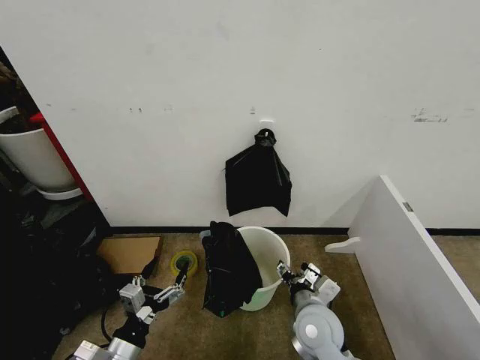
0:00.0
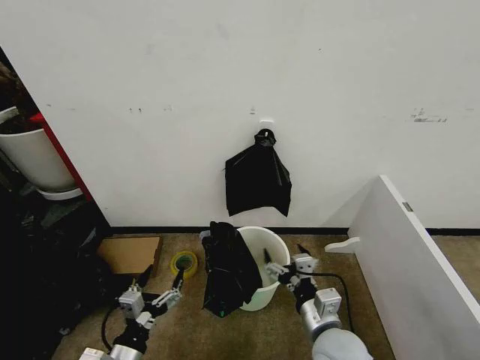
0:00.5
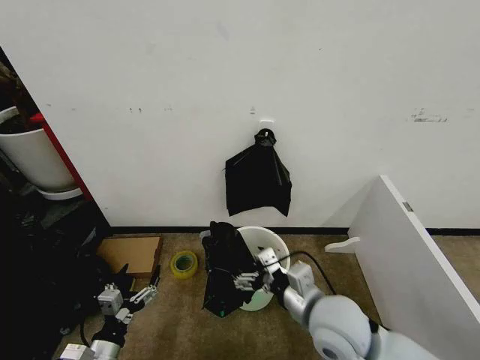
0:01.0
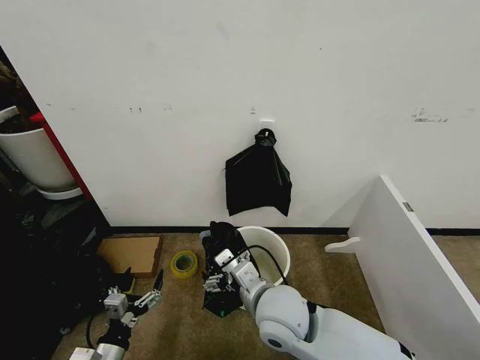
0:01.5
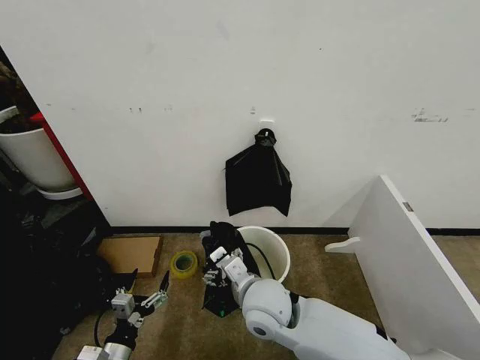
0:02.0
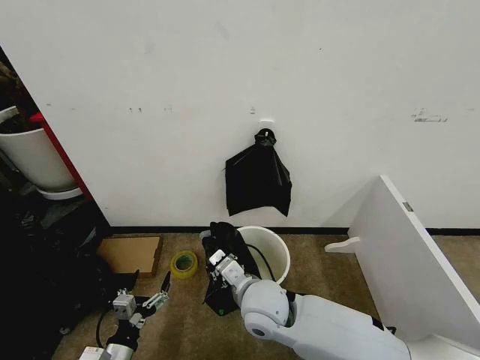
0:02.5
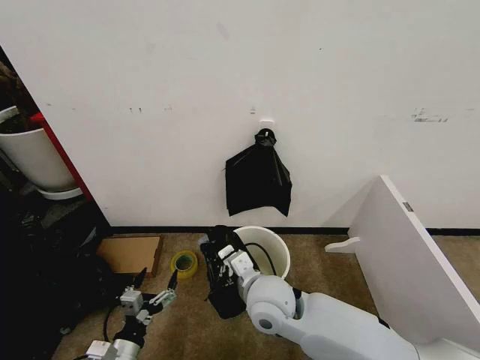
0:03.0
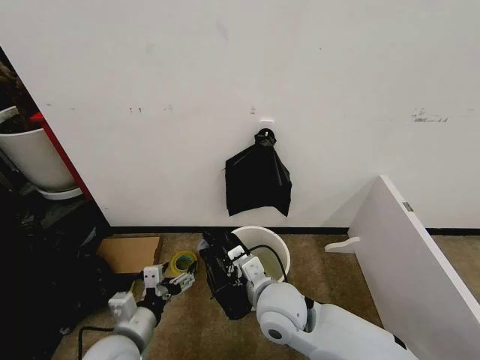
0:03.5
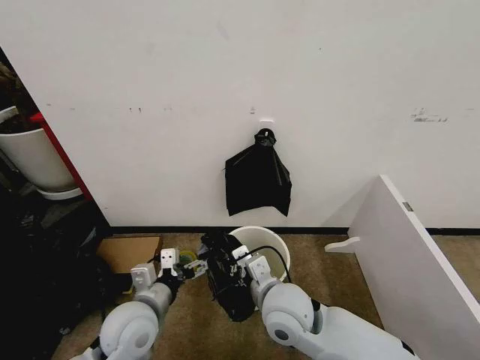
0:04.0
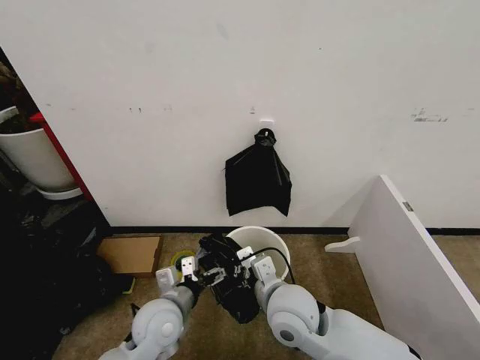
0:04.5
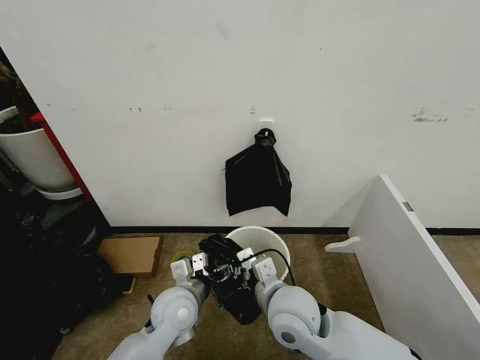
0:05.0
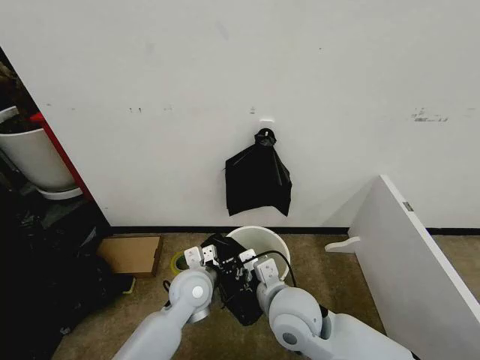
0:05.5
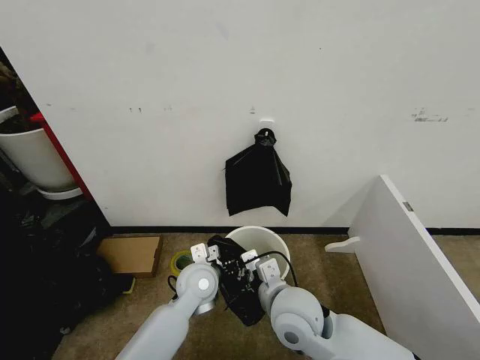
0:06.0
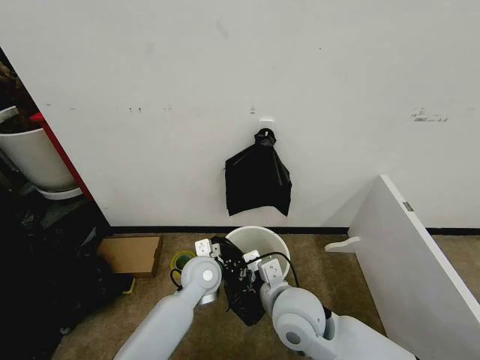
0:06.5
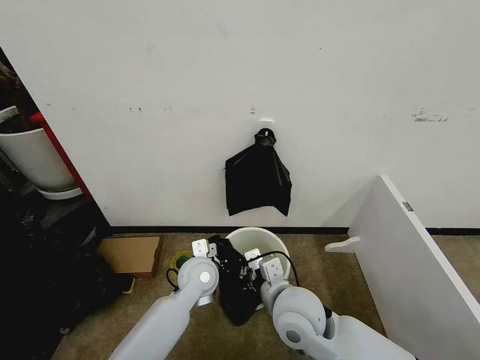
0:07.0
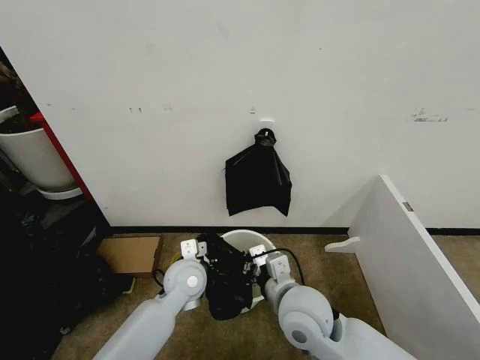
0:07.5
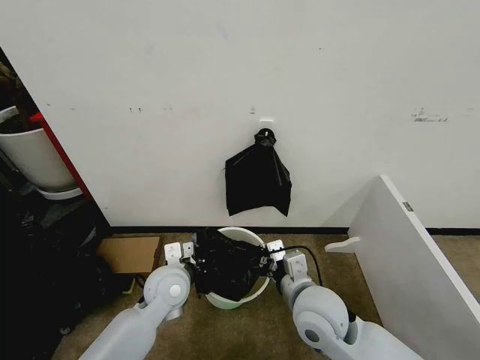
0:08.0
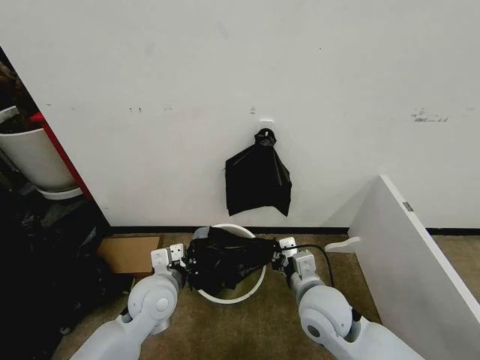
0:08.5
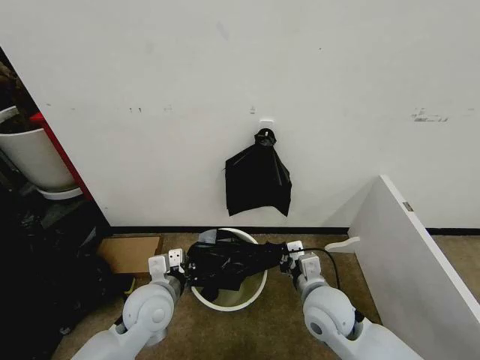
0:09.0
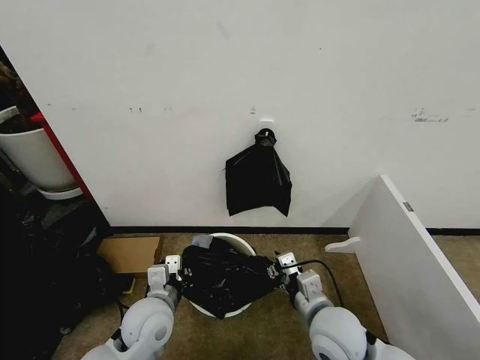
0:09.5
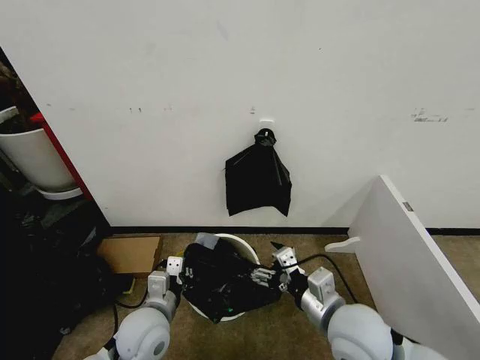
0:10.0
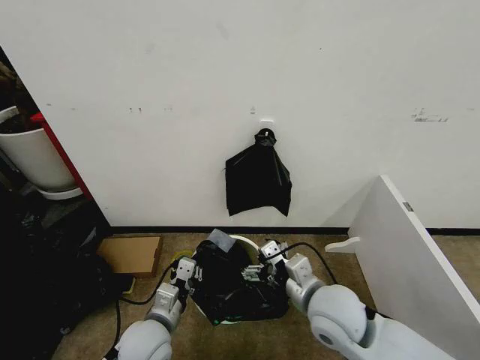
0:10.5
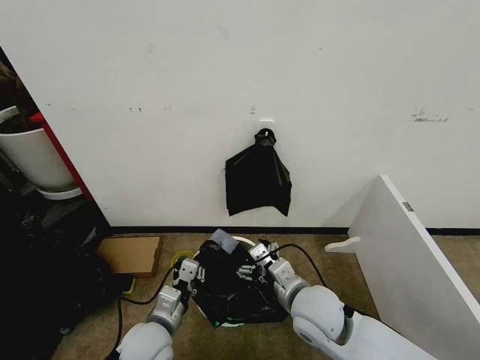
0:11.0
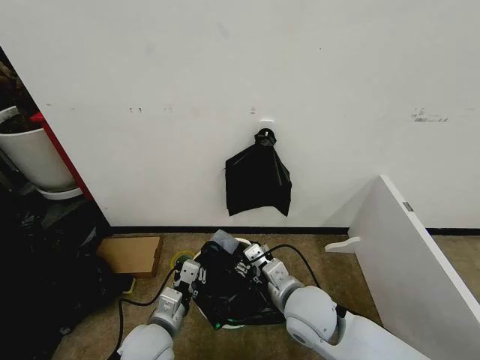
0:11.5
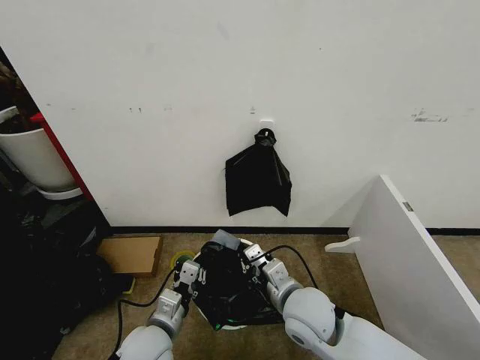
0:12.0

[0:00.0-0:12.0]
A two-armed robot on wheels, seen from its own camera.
Task of the whole recording: Place the garbage bag over the trash bin.
0:00.0 to 0:02.0: The right gripper moves to the left and upward, approximately 15 cm. The left gripper heads downward, covering roughly 5 cm.
0:02.0 to 0:04.0: The left gripper heads upward, forward and to the right, covering about 20 cm, while the right gripper closes up.
0:04.0 to 0:06.0: The left gripper travels to the right and forward by roughly 15 cm.
0:06.0 to 0:08.0: The left gripper is displaced to the left by about 5 cm, and closes.
0:08.0 to 0:10.0: The left gripper shifts approximately 10 cm backward. Meanwhile the right gripper goes about 5 cm to the right, and opens up.
0:10.0 to 0:12.0: The right gripper shifts about 5 cm to the left, and closes its fingers.

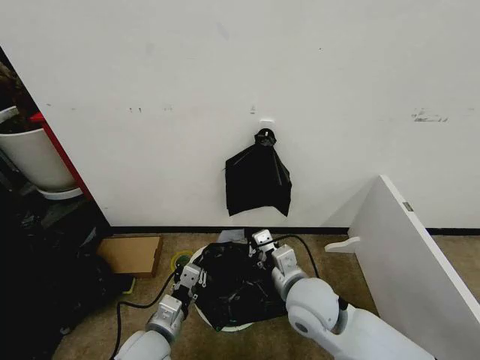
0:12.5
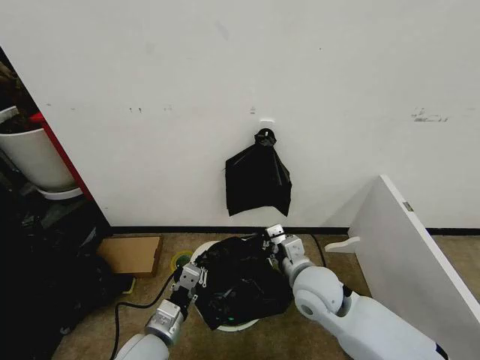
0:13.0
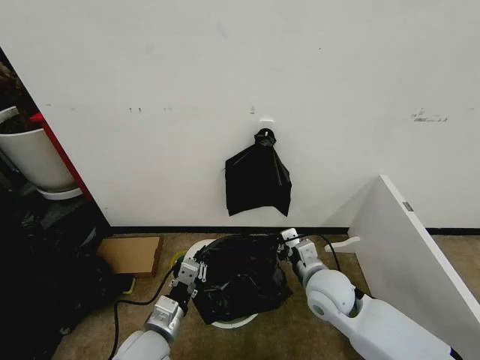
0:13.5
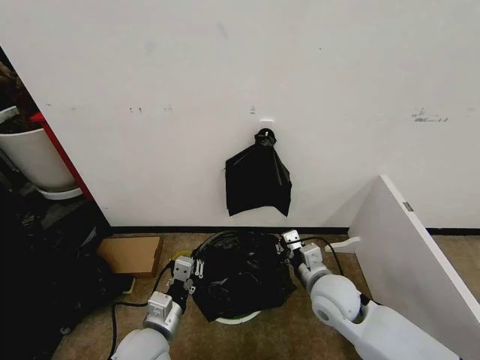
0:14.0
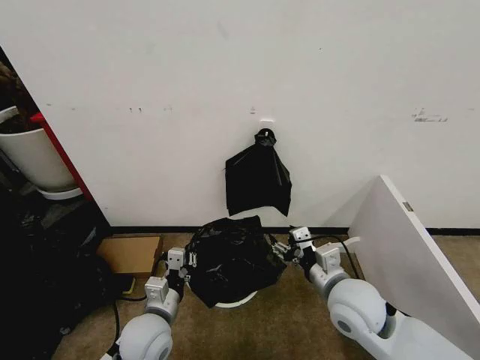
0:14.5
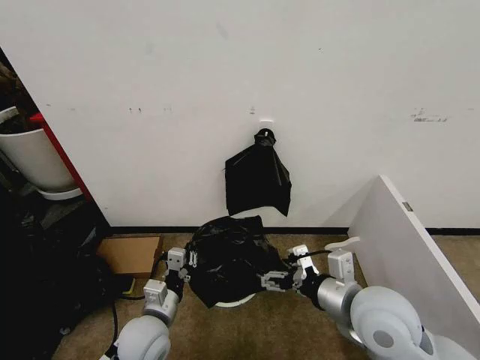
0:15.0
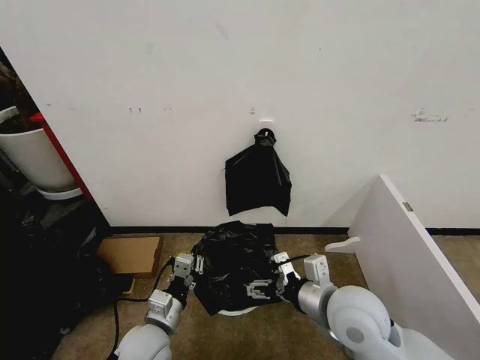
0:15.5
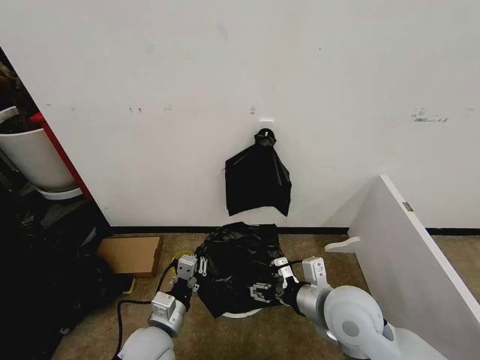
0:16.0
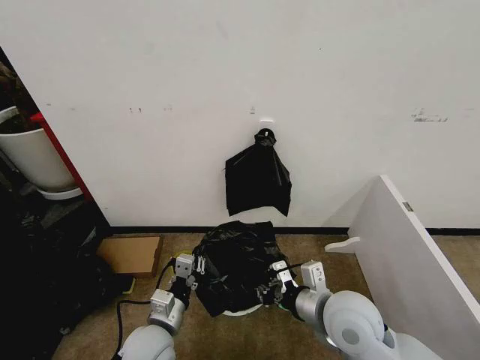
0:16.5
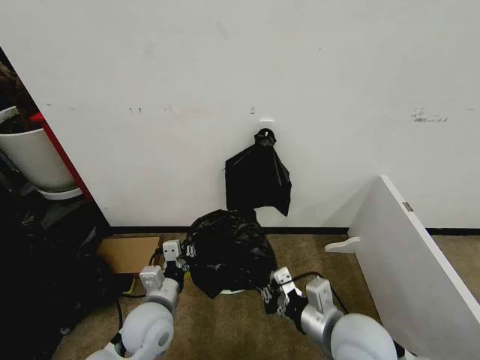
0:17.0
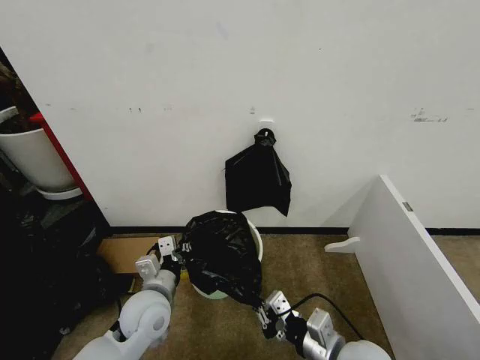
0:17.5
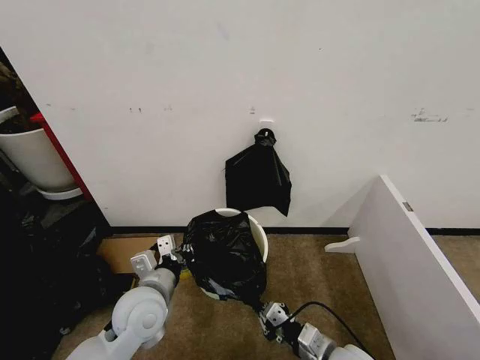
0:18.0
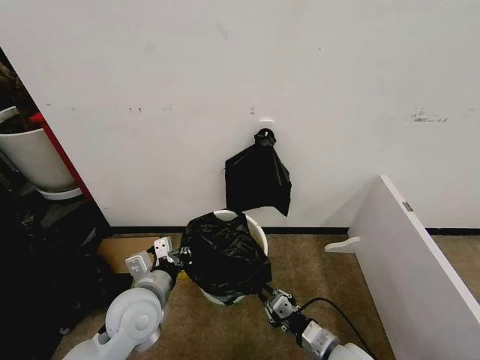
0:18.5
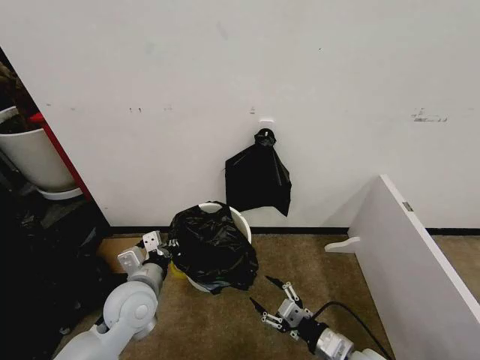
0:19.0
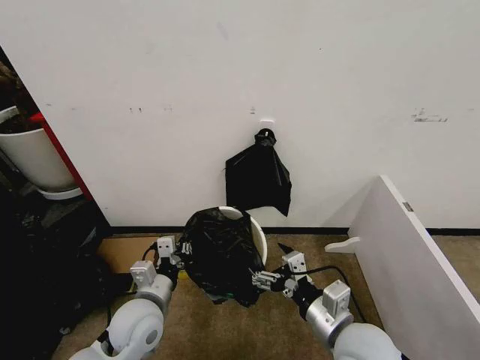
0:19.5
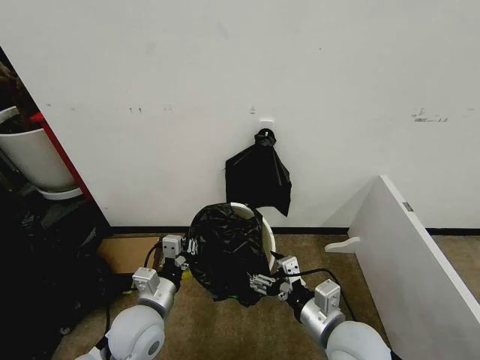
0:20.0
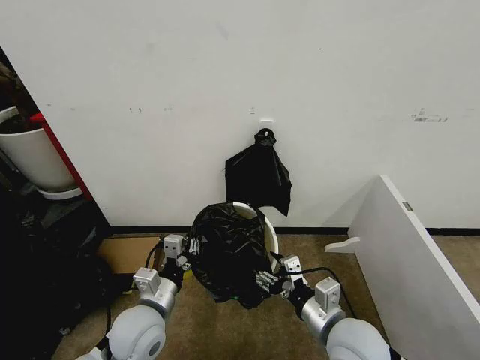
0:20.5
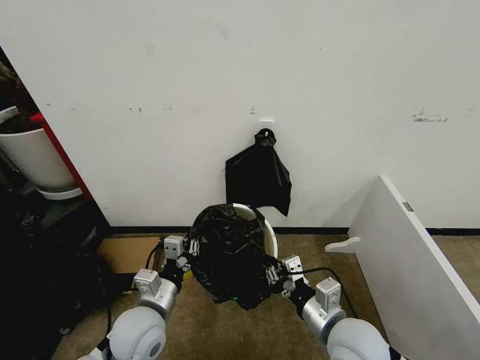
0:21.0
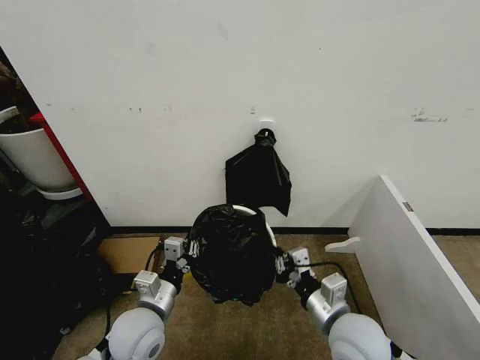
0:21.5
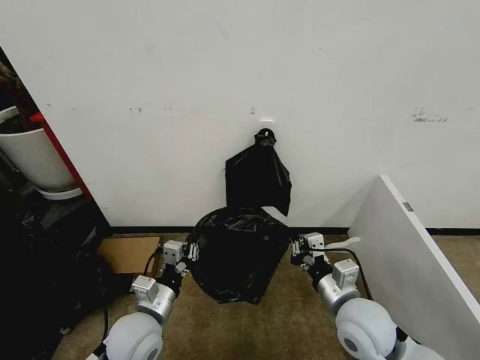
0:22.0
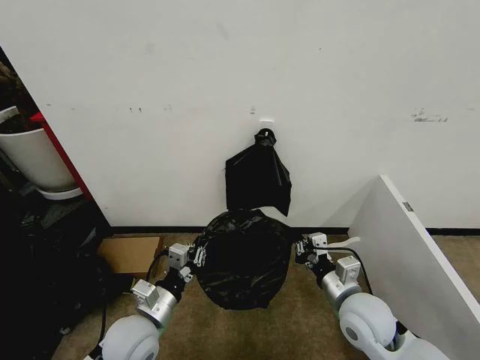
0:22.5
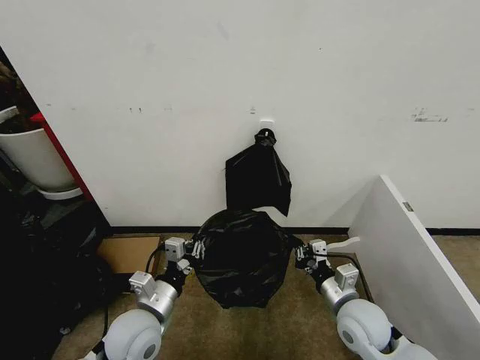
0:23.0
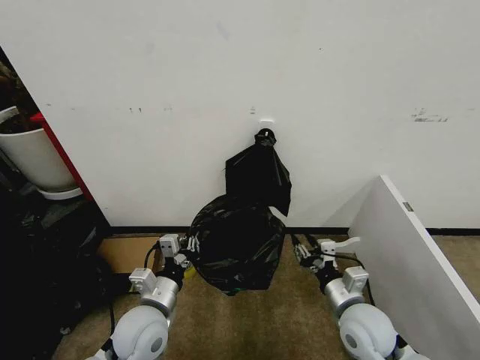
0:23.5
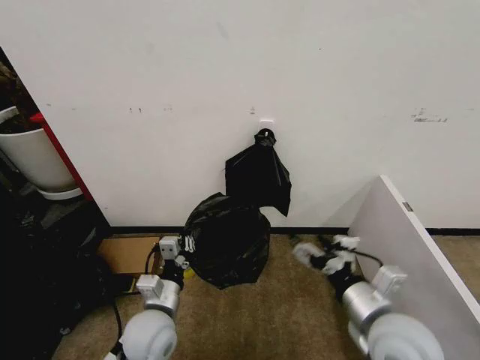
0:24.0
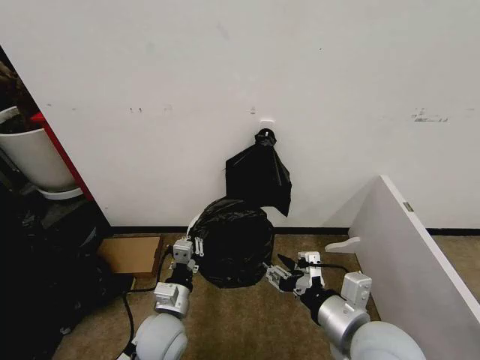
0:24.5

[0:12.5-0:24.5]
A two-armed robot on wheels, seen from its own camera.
Task of the whole recording: Place the garbage bag over the trash bin.
0:12.5 to 0:14.5: The right gripper heads to the right, covering about 10 cm, and opens.
0:14.5 to 0:16.5: The right gripper closes its fingers.
0:16.5 to 0:18.5: The right gripper moves downward and backward, some 15 cm. The left gripper shifts approximately 10 cm upward.
0:18.5 to 0:20.5: The right gripper travels upward by roughly 10 cm, and opens up.
0:20.5 to 0:22.5: The right gripper travels forward and to the right by roughly 10 cm, and closes its fingers.
0:22.5 to 0:24.5: The left gripper moves to the right, roughly 5 cm, while the right gripper heads upward and backward, covering about 10 cm, and opens up.

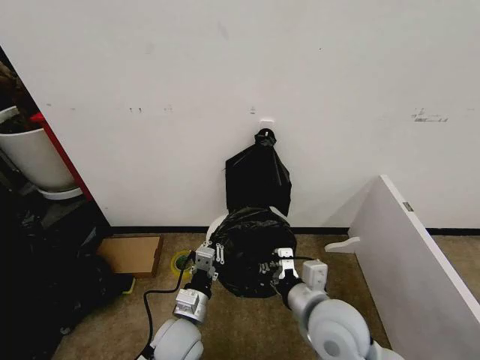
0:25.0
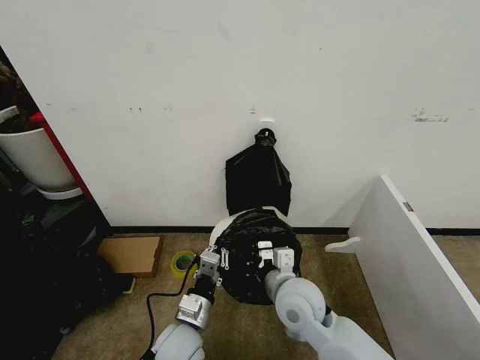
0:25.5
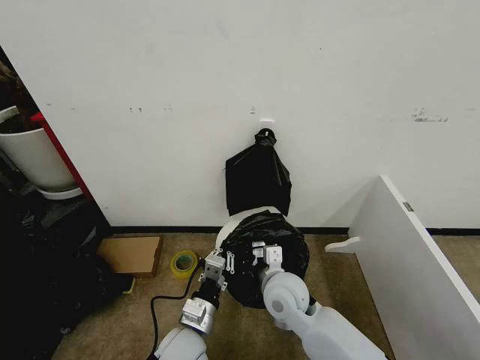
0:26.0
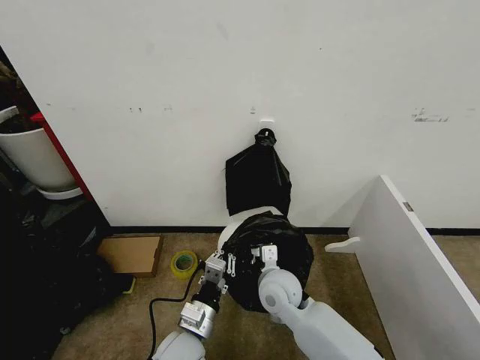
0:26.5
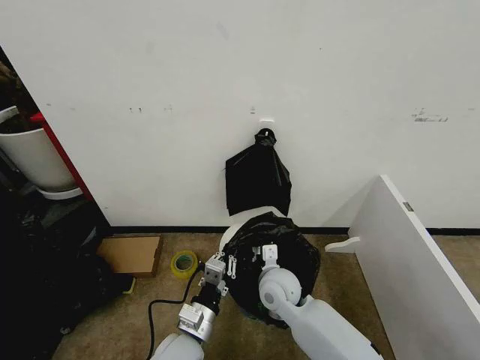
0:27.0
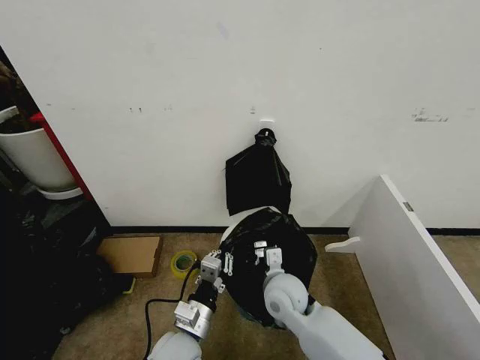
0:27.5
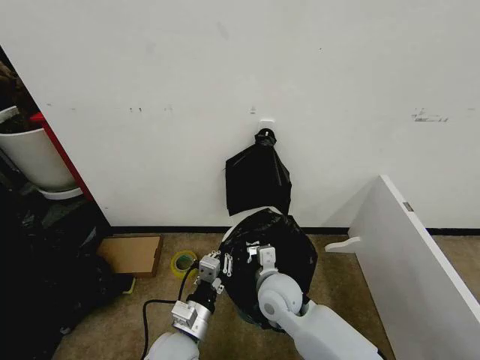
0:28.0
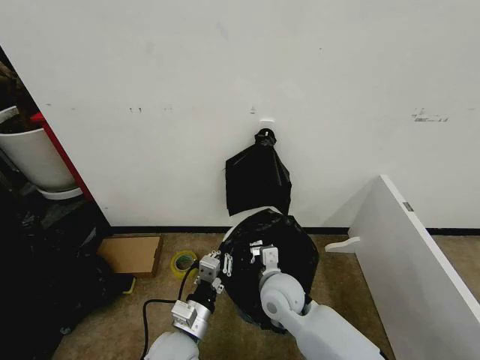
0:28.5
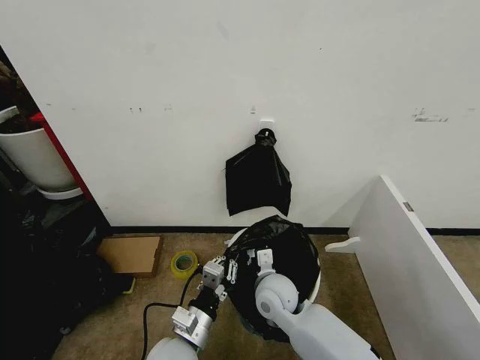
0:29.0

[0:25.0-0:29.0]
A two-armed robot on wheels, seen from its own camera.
Task of the whole recording: Place the garbage bag over the trash bin.
0:25.0 to 0:27.0: The right gripper goes about 15 cm forward, downward and to the left.
0:27.0 to 0:29.0: There are only small adjustments of the grippers.
